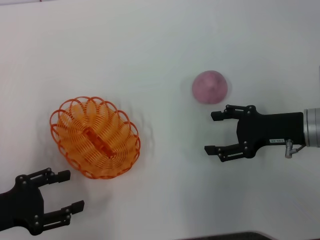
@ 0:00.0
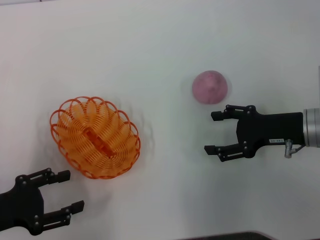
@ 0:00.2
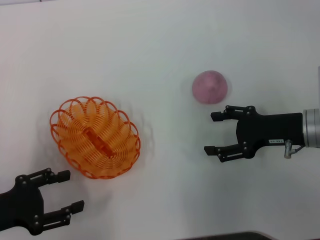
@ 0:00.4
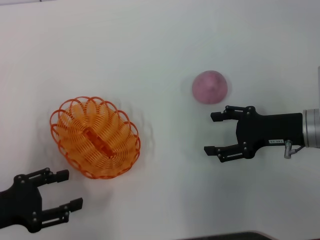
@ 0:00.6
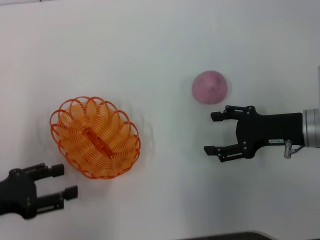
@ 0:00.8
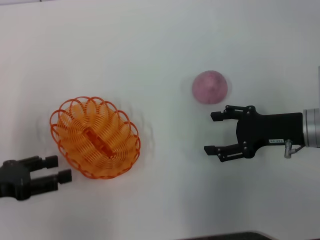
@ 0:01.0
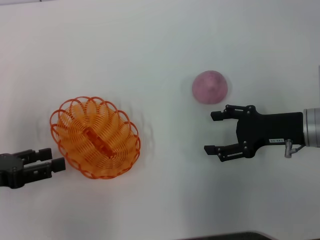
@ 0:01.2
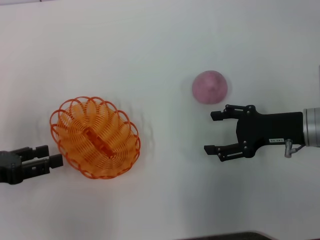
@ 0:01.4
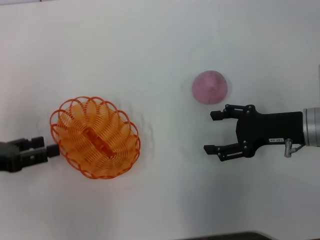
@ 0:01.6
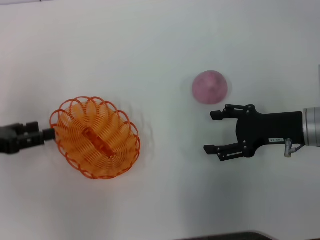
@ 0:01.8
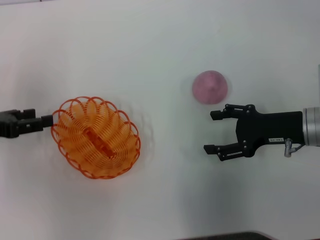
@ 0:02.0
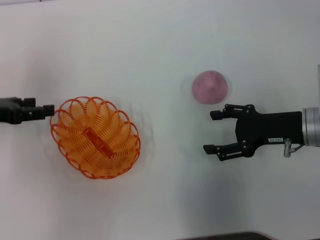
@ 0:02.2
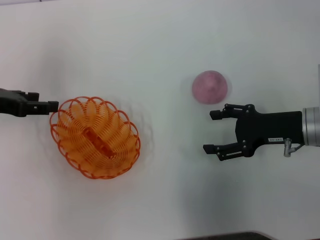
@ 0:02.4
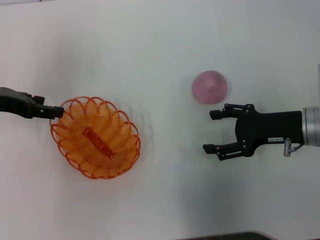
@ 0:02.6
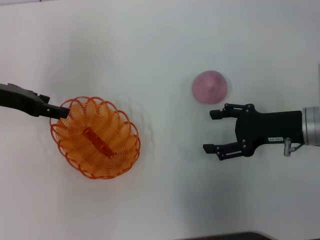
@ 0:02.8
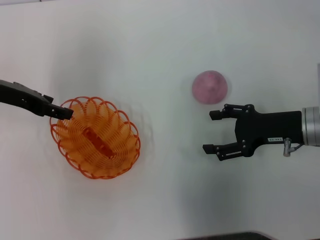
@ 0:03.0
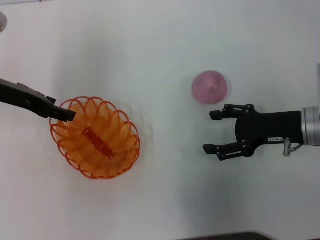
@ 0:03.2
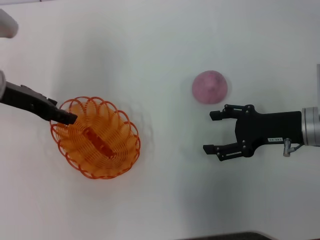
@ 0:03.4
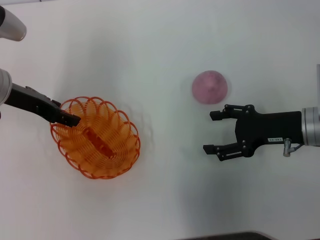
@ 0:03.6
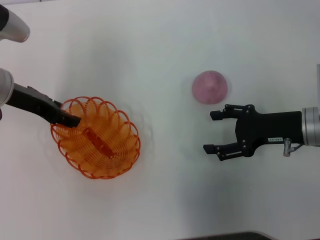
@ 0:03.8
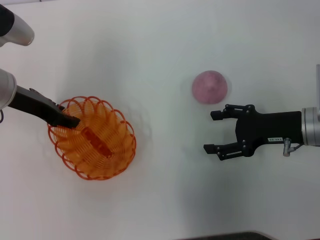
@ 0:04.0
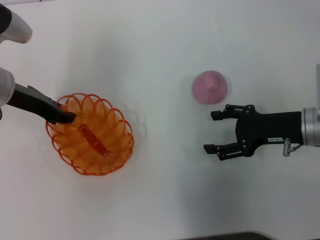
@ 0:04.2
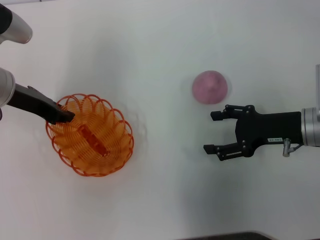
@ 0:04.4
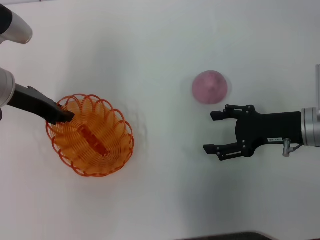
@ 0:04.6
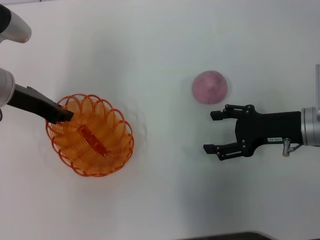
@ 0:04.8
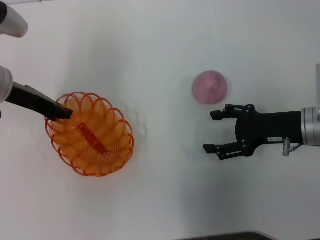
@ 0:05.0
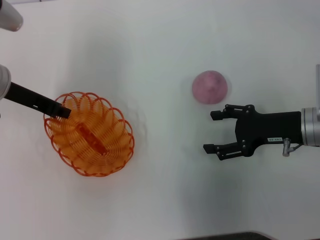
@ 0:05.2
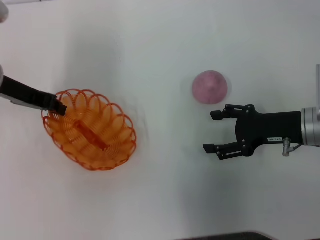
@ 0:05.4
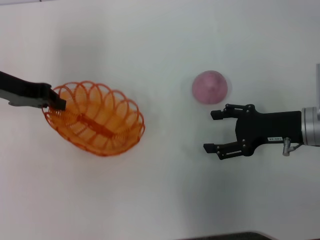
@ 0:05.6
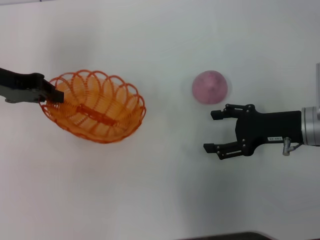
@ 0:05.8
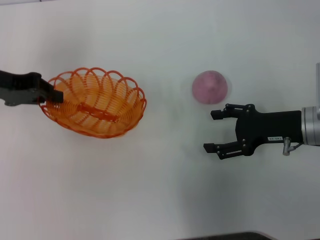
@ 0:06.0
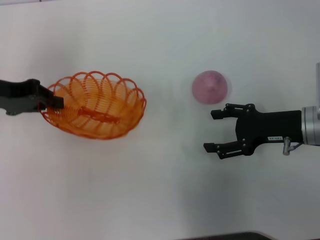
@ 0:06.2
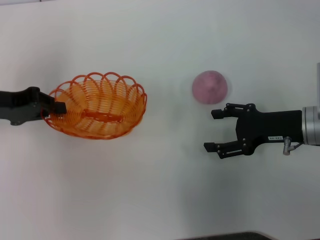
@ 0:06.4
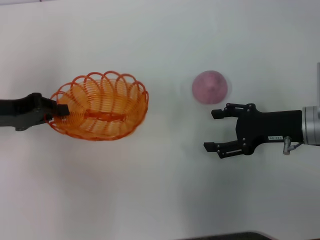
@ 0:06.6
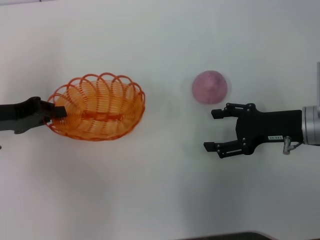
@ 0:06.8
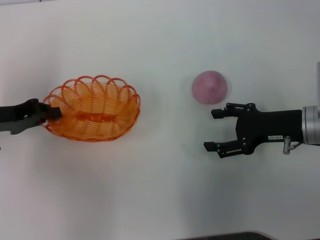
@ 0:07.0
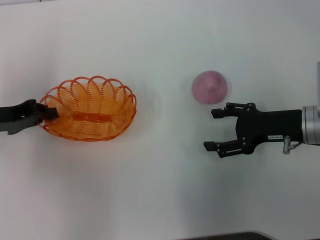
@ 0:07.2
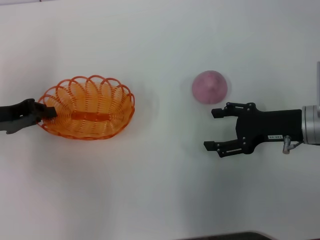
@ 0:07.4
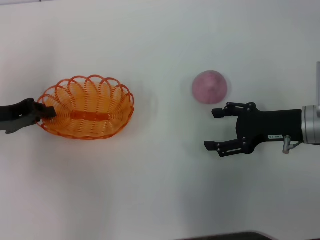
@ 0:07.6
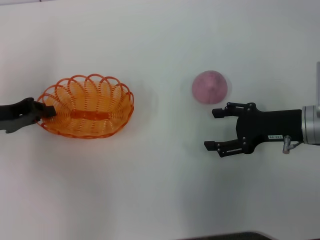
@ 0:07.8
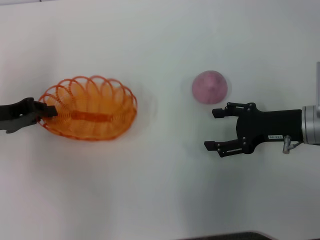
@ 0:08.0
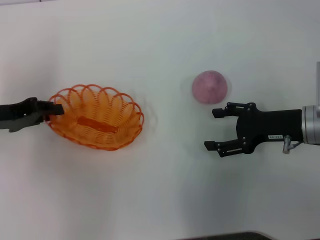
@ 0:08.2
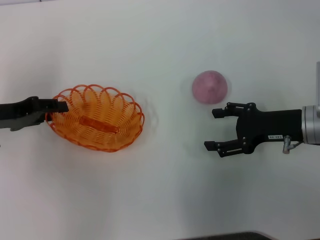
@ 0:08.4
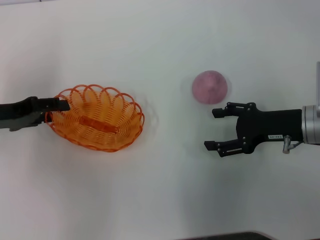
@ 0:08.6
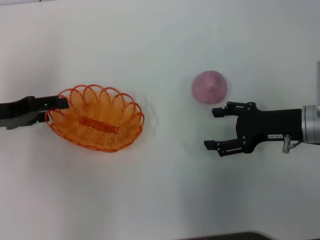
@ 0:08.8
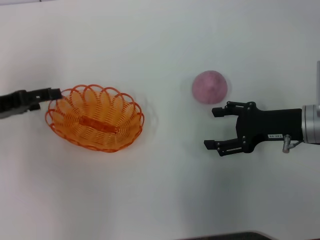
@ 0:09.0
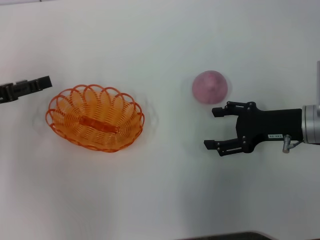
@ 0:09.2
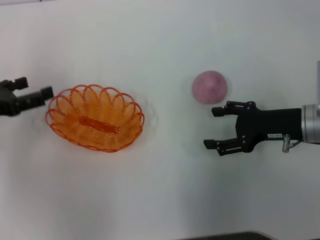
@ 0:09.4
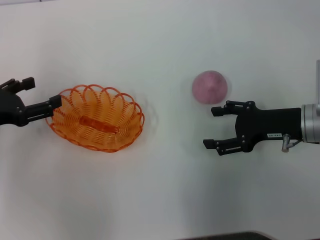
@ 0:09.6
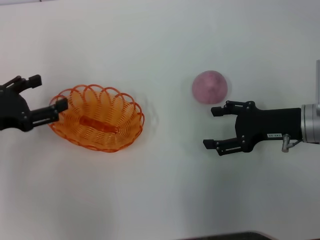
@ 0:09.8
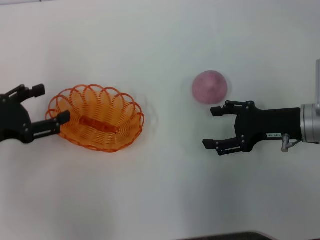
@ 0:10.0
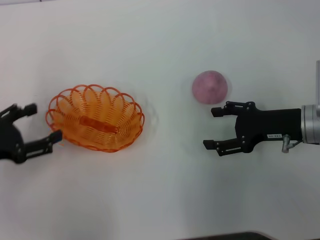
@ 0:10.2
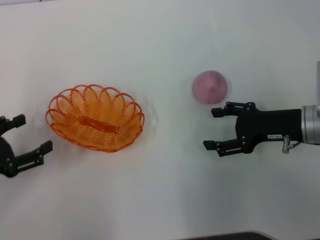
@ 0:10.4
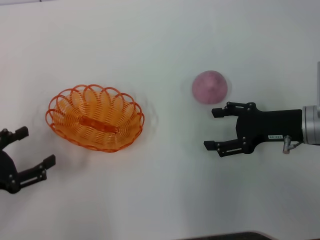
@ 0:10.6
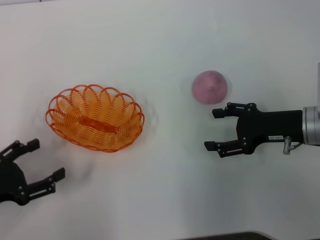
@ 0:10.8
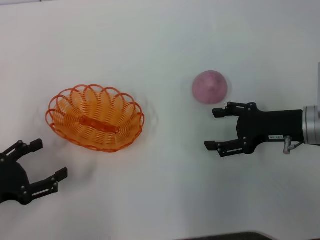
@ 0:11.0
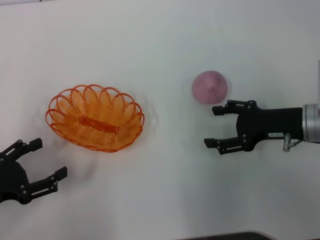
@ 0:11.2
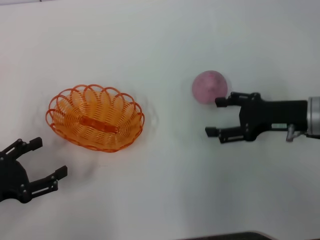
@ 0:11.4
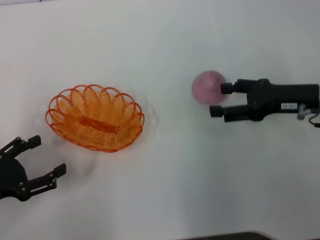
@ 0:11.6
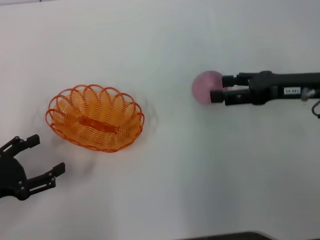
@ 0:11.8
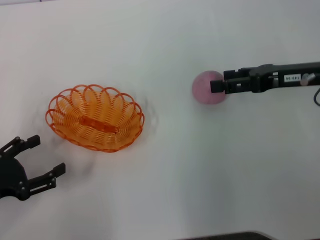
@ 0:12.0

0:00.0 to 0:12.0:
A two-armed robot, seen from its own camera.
Step, 0:00.0 to 0:06.0: Pick up the basket with the left gripper.
Step, 0:06.2 to 0:10.4: Place the basket in the center of view with the left gripper.
0:00.0 to 0:01.6: The left gripper goes some 5 cm forward.
0:01.6 to 0:03.0: The left gripper goes approximately 15 cm forward, to the right and upward.
0:03.0 to 0:04.4: The left gripper closes up.
0:04.4 to 0:06.0: The left gripper heads to the left, covering about 5 cm, and closes up.
0:06.0 to 0:07.6: The left gripper goes about 10 cm downward and backward.
0:07.6 to 0:09.0: The left gripper opens up.
0:09.0 to 0:10.4: The left gripper heads backward, covering roughly 10 cm.
0:10.4 to 0:12.0: The right gripper is displaced upward by some 5 cm.

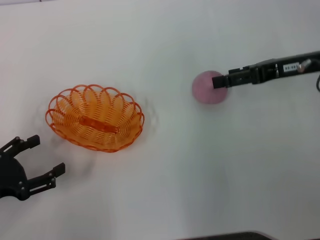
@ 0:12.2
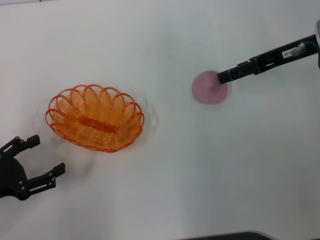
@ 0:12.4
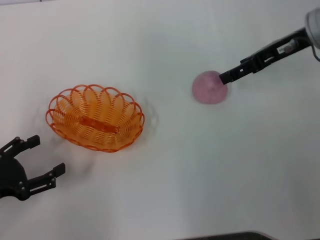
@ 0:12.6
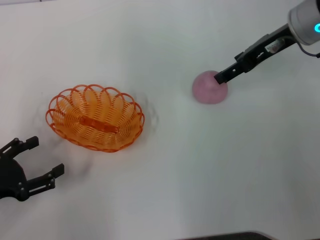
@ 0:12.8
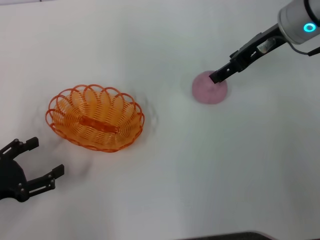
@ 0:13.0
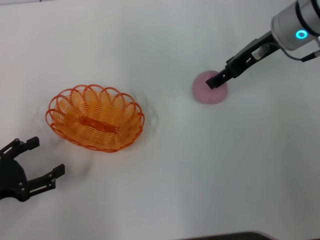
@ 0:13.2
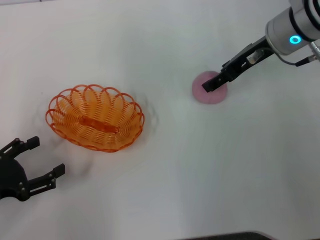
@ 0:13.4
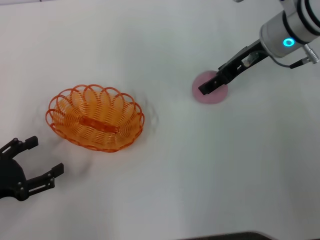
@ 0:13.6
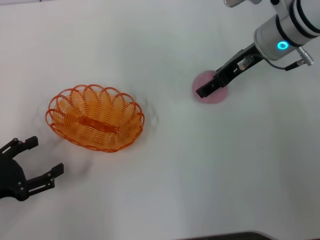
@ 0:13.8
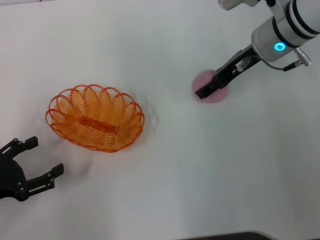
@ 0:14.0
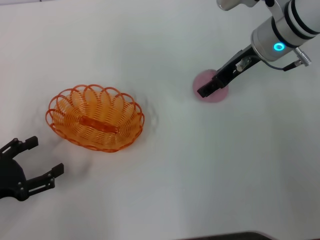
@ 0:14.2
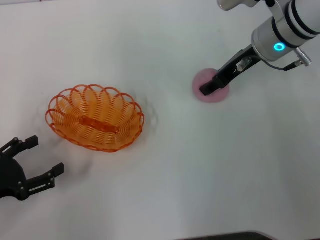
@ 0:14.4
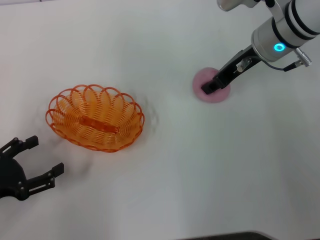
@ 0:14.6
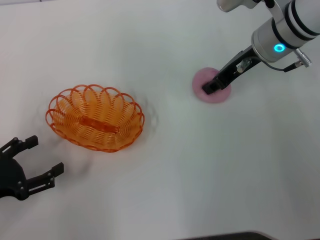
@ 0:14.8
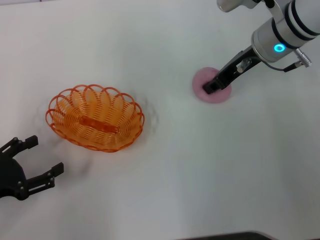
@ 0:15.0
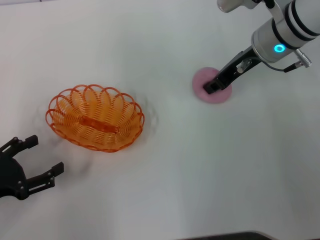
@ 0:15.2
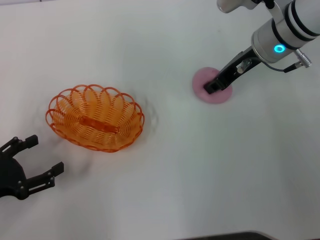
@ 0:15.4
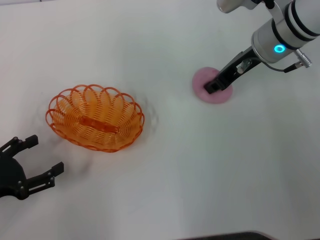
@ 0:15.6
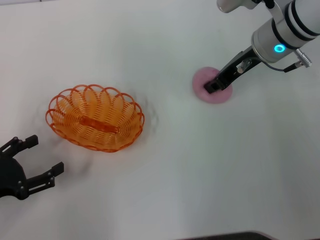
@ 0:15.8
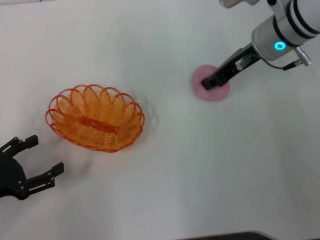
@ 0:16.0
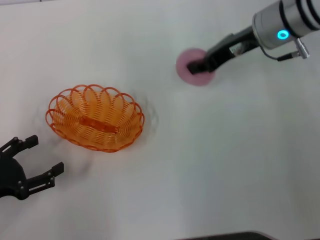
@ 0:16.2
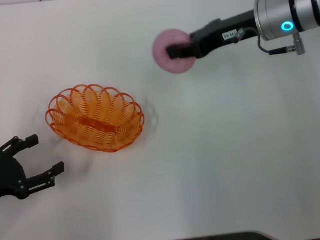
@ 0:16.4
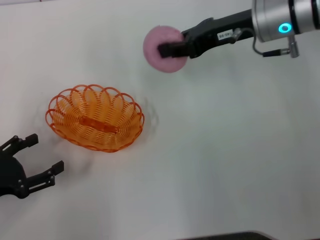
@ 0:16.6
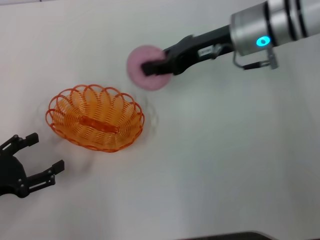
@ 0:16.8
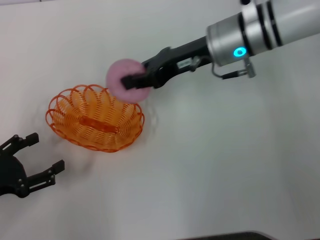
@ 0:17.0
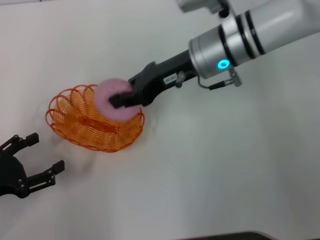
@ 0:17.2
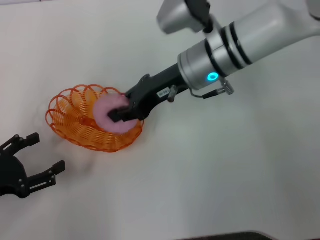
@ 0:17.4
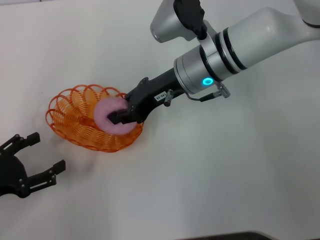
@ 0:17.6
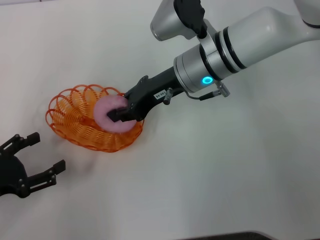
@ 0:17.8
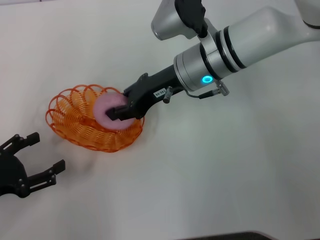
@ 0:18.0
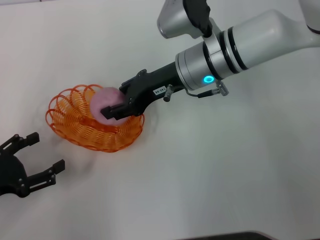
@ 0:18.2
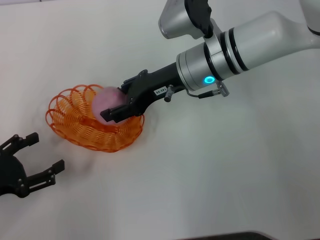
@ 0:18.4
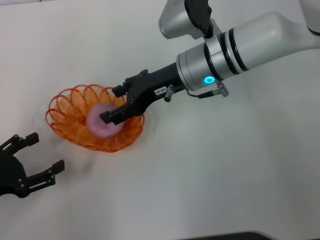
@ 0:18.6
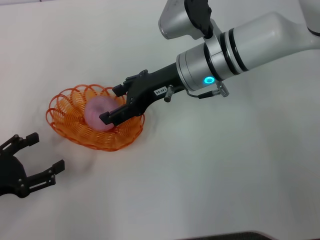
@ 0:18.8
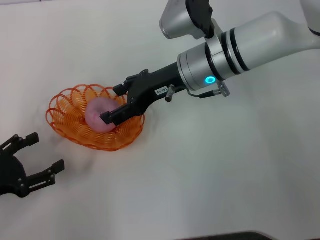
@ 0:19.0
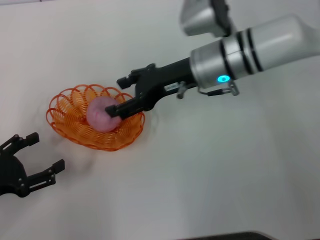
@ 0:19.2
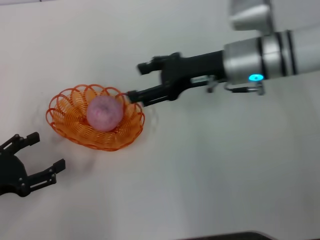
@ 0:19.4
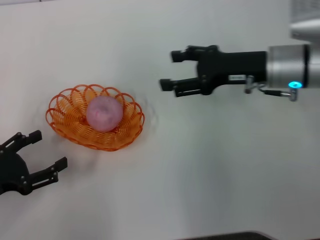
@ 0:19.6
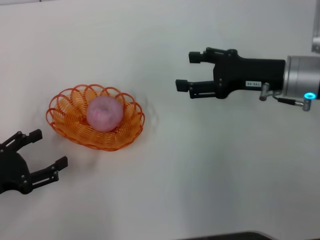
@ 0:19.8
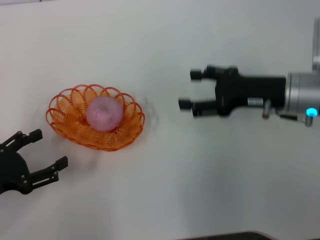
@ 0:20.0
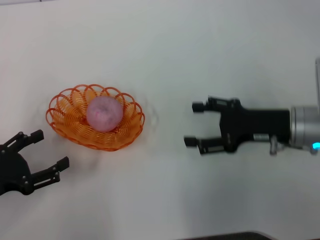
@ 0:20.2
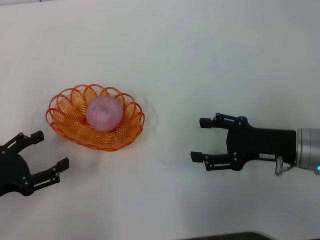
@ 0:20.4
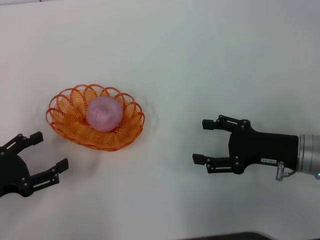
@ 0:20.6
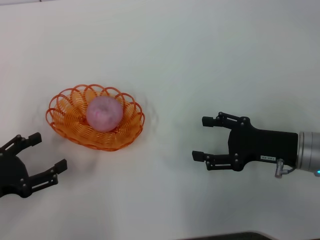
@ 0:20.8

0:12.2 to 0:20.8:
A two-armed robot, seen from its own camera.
Step, 0:12.2 to 0:16.0: Pick up the peach with the right gripper.
Step, 0:16.2 to 0:19.6: Place the peach into the basket with the right gripper.
0:12.2 to 0:13.6: The right gripper shifts about 10 cm to the left and forward.
0:13.6 to 0:15.0: The right gripper closes up.
0:16.6 to 0:18.0: The right gripper moves to the left and downward, roughly 10 cm.
0:18.0 to 0:19.4: The right gripper shifts roughly 5 cm to the right, and opens.
0:19.4 to 0:20.8: The right gripper heads backward, to the right and downward, covering approximately 15 cm.
